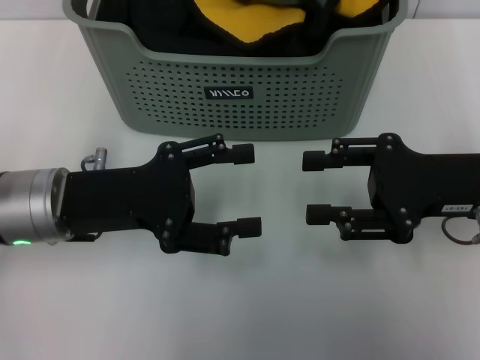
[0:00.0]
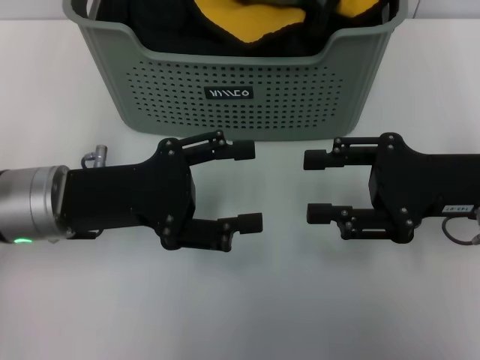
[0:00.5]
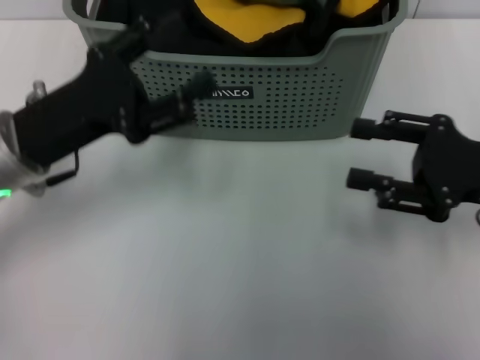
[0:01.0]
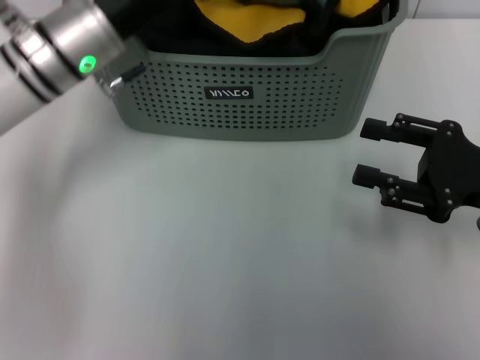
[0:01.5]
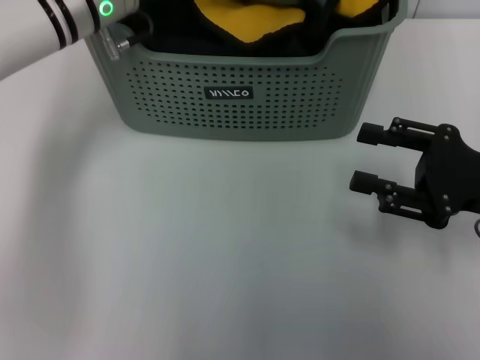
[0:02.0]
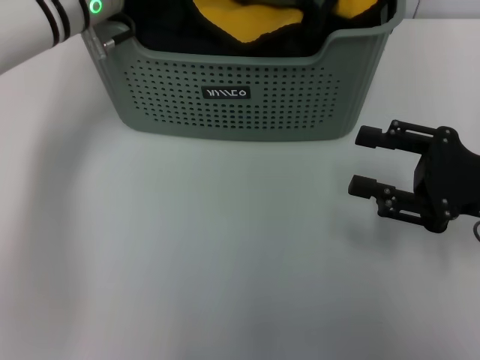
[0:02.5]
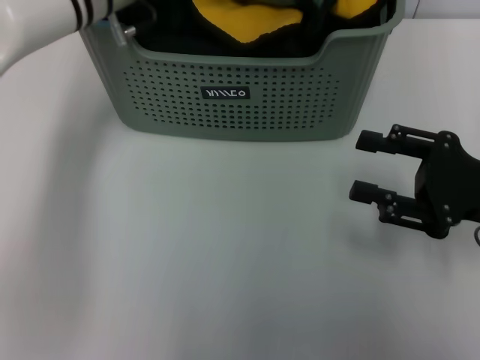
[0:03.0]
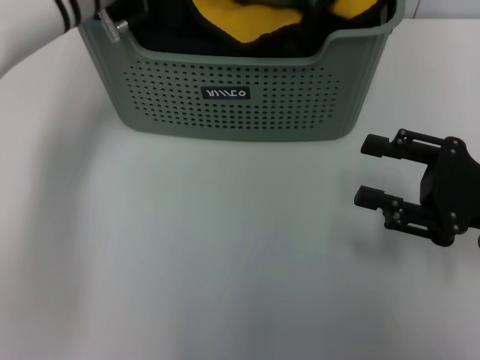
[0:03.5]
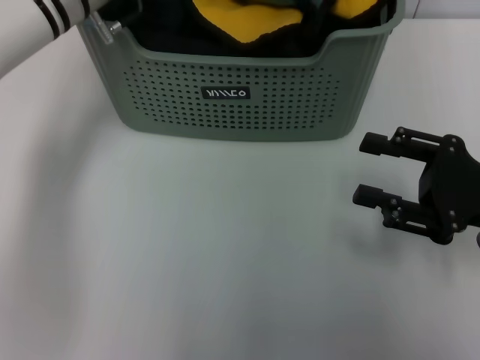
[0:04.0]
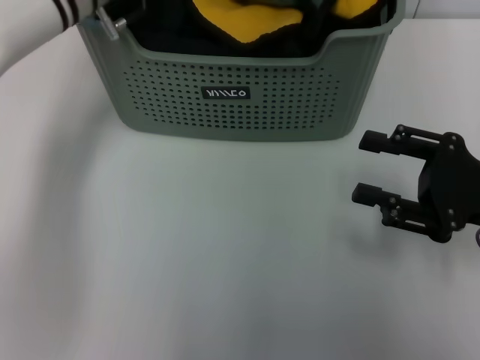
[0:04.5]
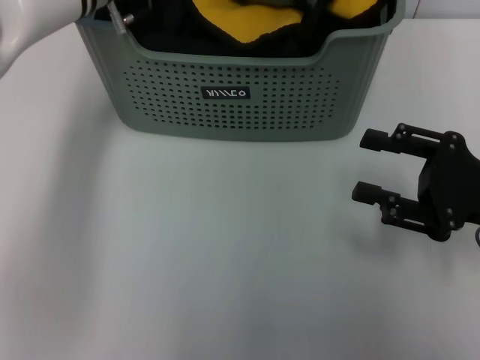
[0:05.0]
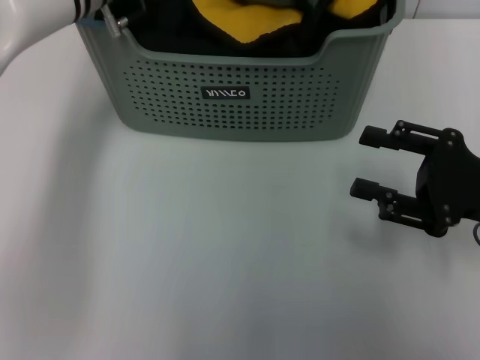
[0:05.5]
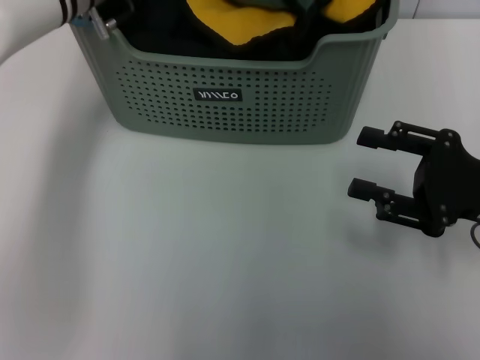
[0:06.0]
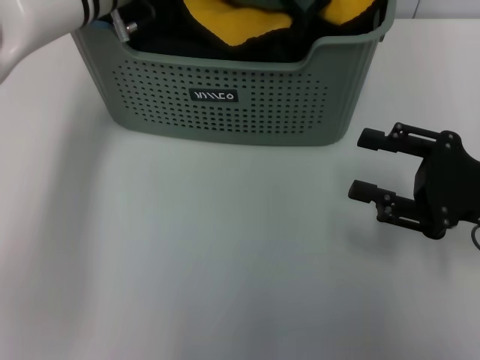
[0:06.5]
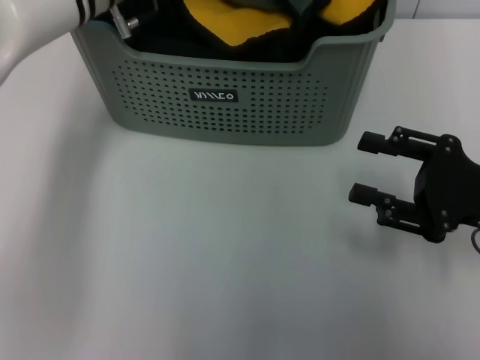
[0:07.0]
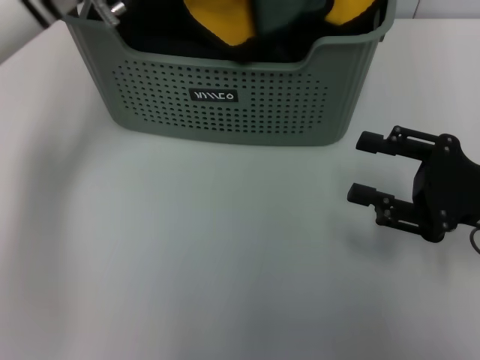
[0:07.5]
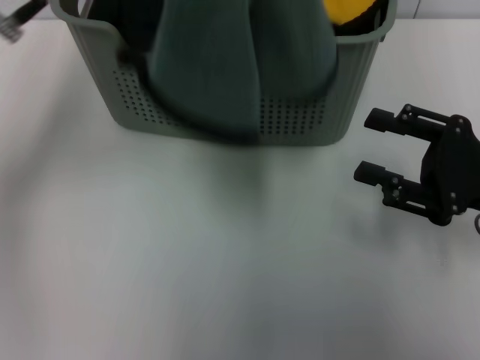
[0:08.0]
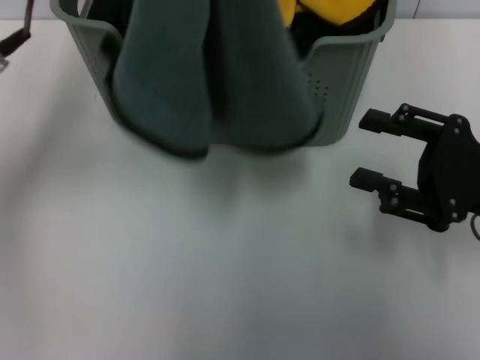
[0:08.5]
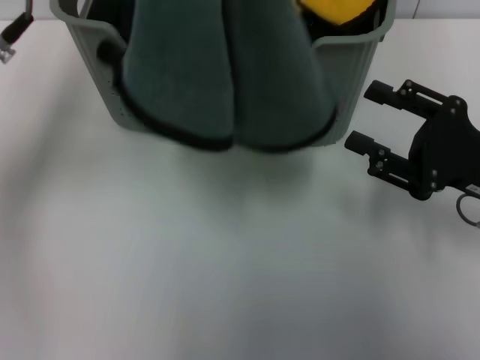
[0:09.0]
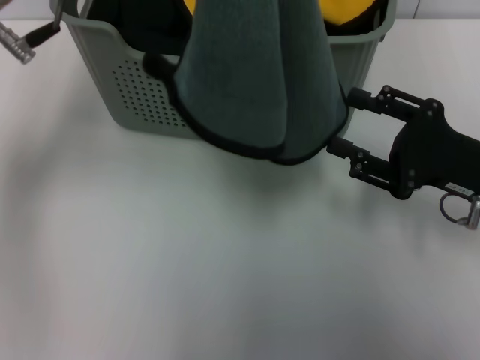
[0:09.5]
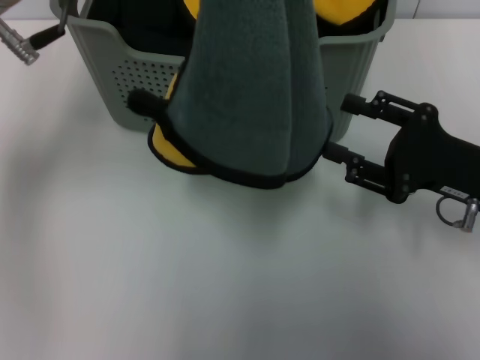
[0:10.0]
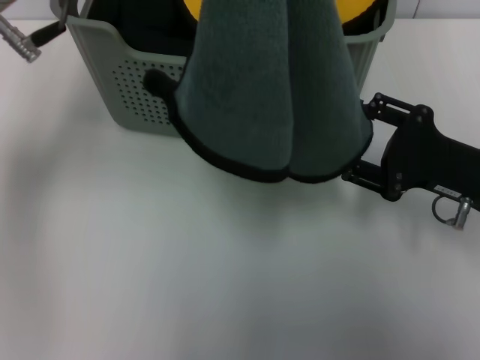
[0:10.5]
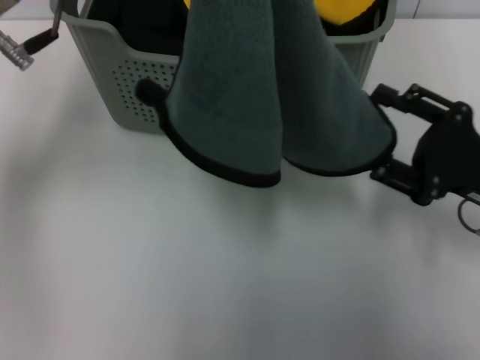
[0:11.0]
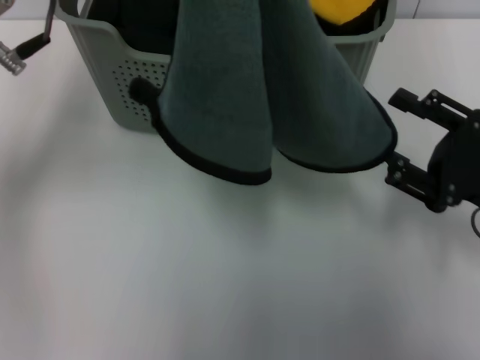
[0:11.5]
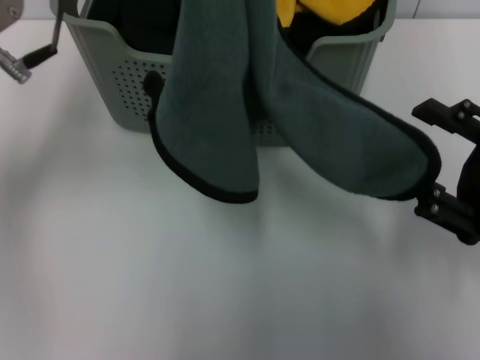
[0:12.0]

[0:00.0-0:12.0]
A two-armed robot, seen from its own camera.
Task of the whole recording: pick up the towel from the storage box and lay it flat on the table.
Step, 0:00.0 to 0:07.5: Pick up a towel with the left gripper.
0:00.0 to 0:02.0: The left gripper goes some 15 cm forward.
0:02.0 to 0:04.0: The left gripper closes.
0:04.0 to 0:06.0: There are only small adjustments of the grippers.
0:06.0 to 0:08.0: The left gripper goes about 15 cm backward and upward, and closes its fingers.
0:08.0 to 0:10.0: There are only small adjustments of the grippers.
0:10.0 to 0:12.0: The right gripper goes roughly 5 cm backward.

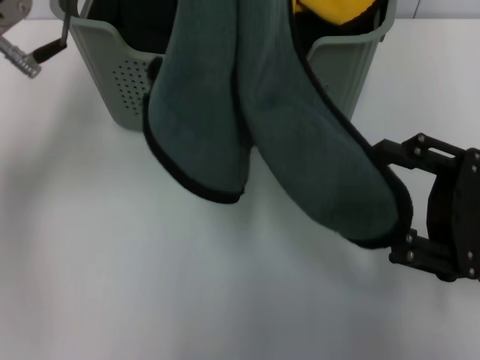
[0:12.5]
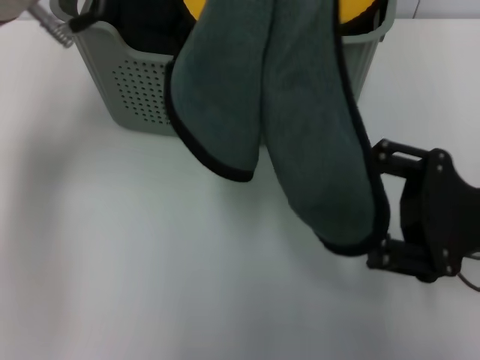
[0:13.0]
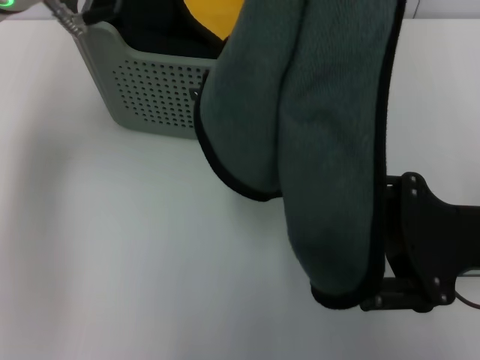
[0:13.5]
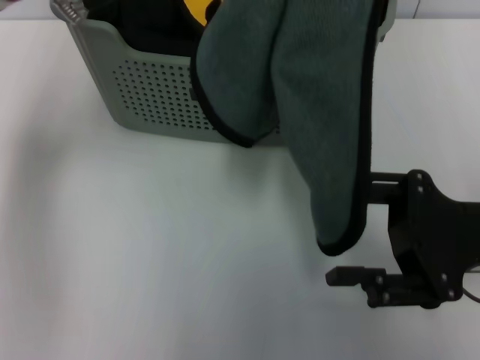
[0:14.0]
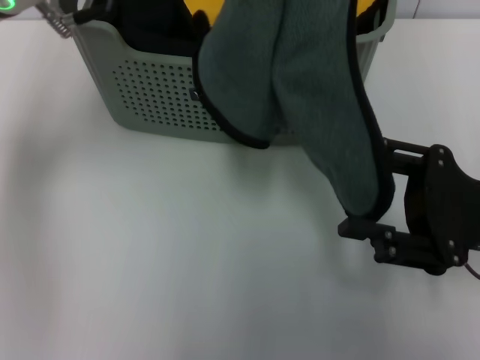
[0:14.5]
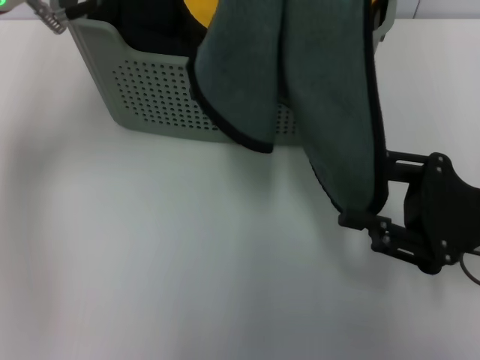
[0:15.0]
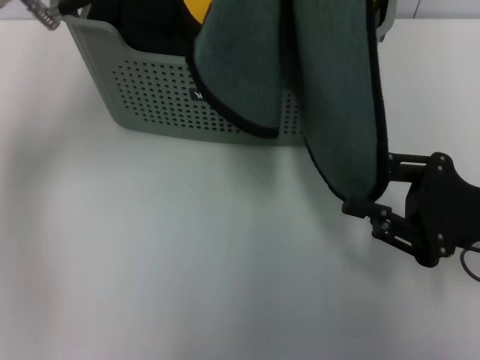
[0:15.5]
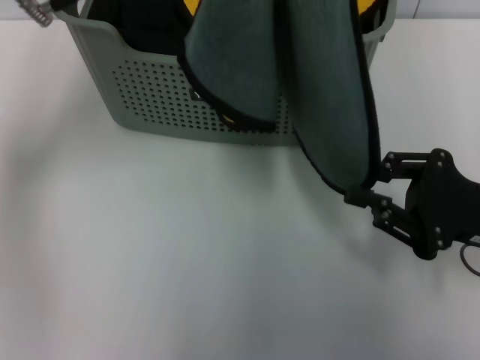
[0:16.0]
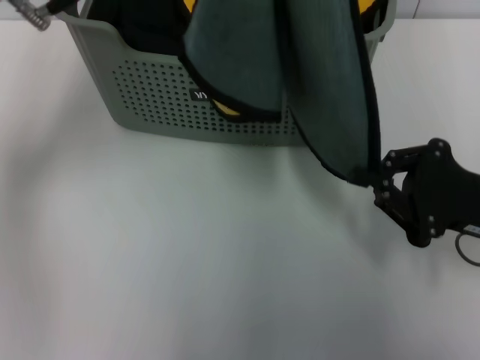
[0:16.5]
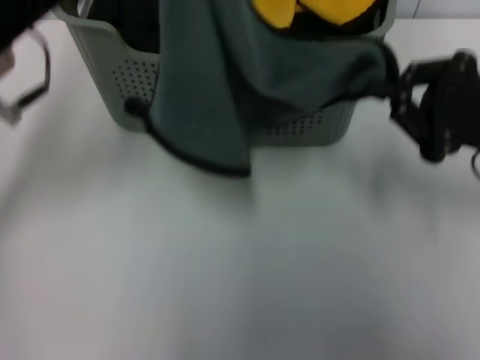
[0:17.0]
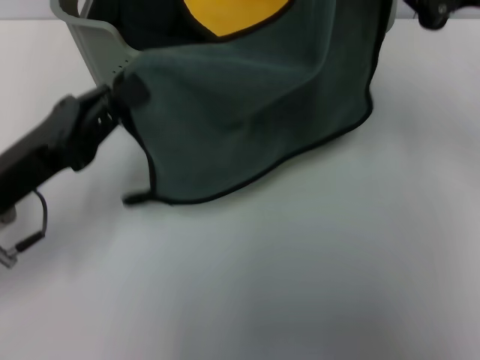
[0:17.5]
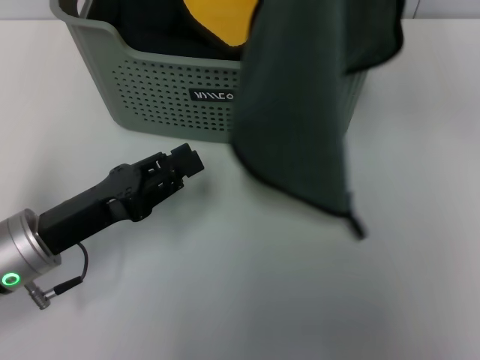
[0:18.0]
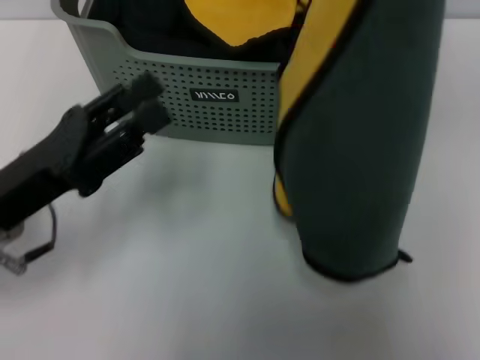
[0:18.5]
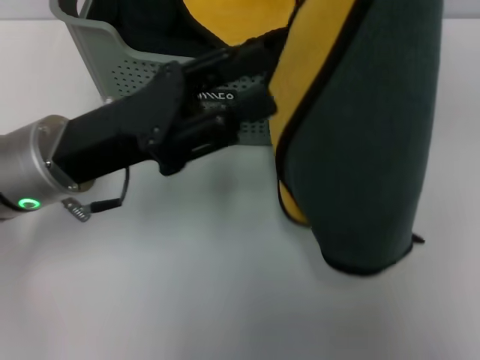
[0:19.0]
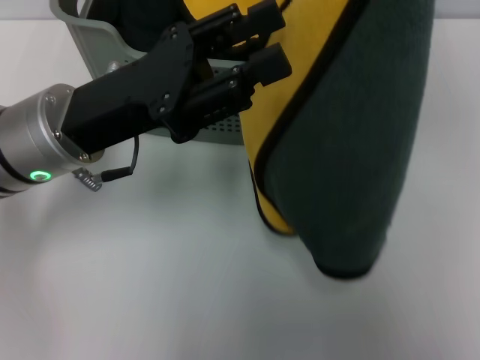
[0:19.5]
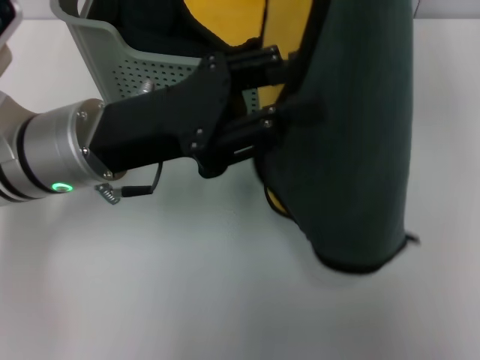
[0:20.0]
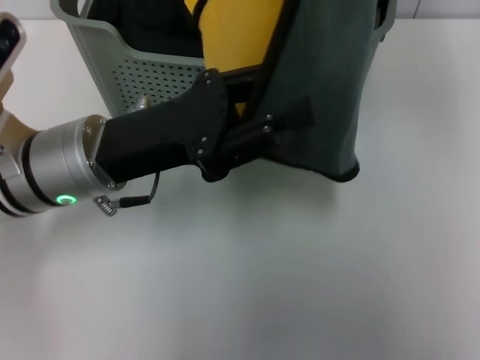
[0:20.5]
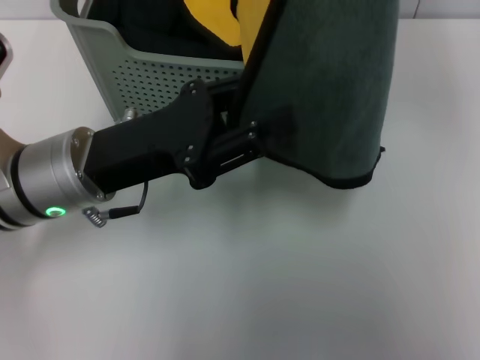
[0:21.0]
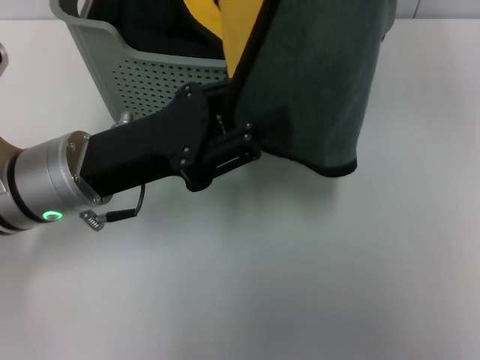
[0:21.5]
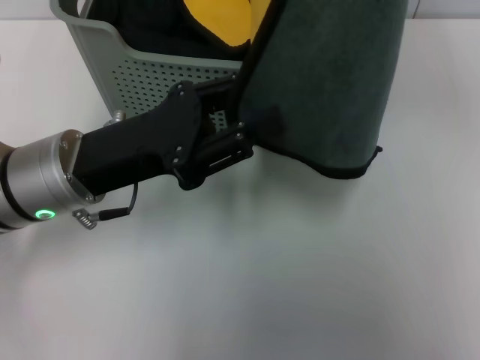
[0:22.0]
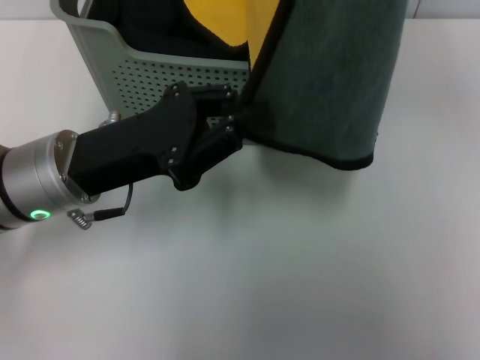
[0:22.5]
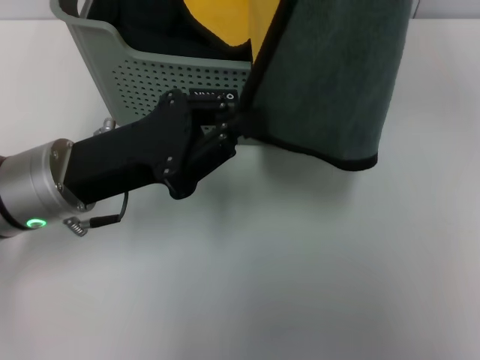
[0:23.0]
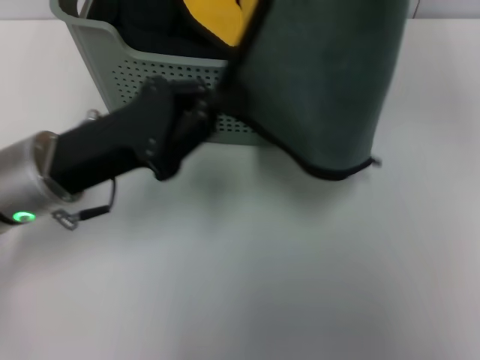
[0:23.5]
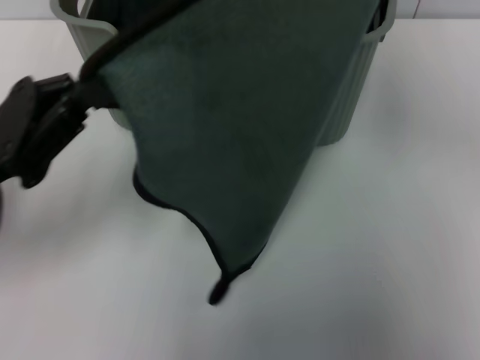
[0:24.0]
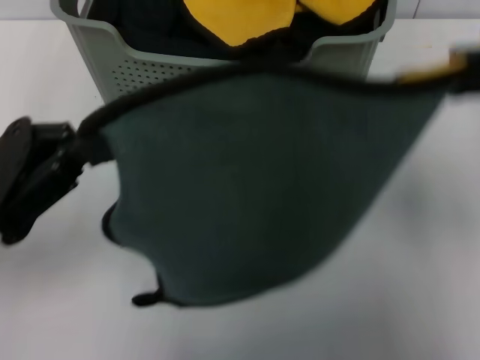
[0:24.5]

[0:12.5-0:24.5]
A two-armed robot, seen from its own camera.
Task of the whole recording: pick up the towel from the storage box and lay it flat on the table.
Step, 0:12.5 to 0:16.5: Spread the towel flat with the left gripper.
0:12.5 to 0:14.5: There are only small adjustments of the grippers.
0:14.5 to 0:16.5: The right gripper closes.
0:16.5 to 0:18.5: The left gripper moves downward and backward, approximately 20 cm, and opens up. The right gripper shifts about 35 cm upward.
0:18.5 to 0:20.5: The left gripper moves to the right and forward, roughly 10 cm.
0:20.5 to 0:22.5: There are only small adjustments of the grippers.
0:22.5 to 0:24.5: The left gripper shifts some 10 cm to the left and backward, and closes its fingers. The right gripper goes some 20 cm downward and backward.

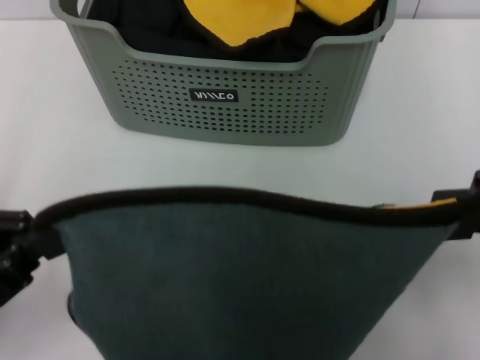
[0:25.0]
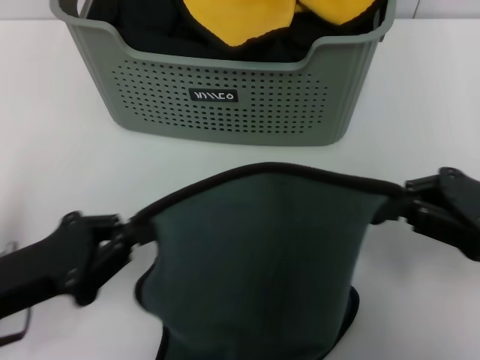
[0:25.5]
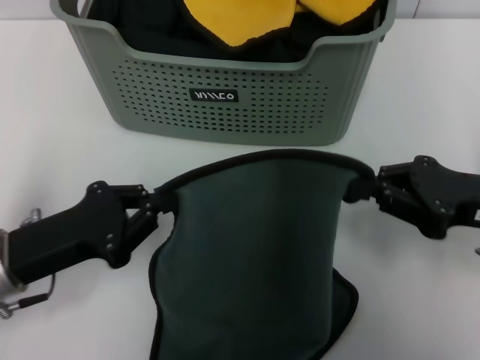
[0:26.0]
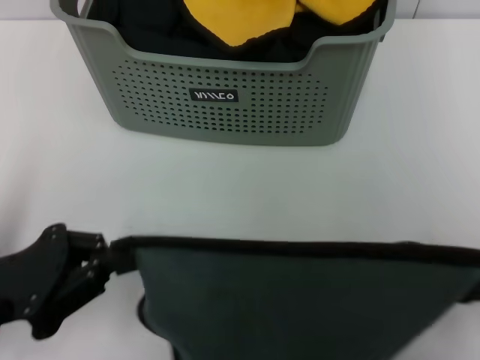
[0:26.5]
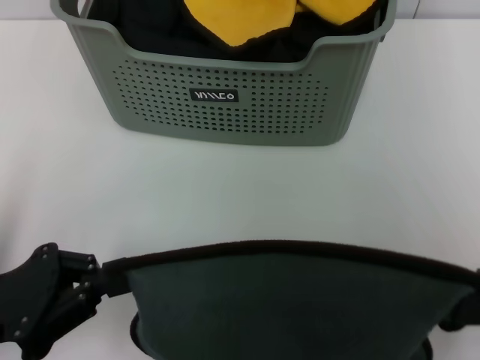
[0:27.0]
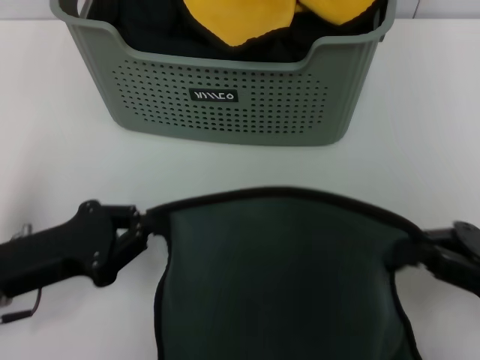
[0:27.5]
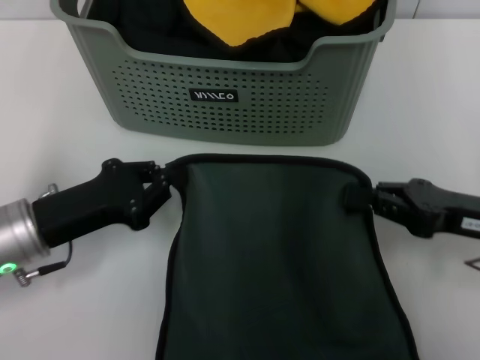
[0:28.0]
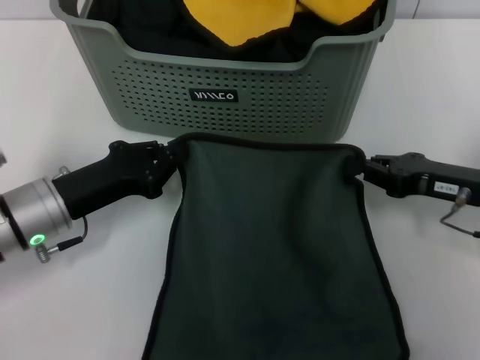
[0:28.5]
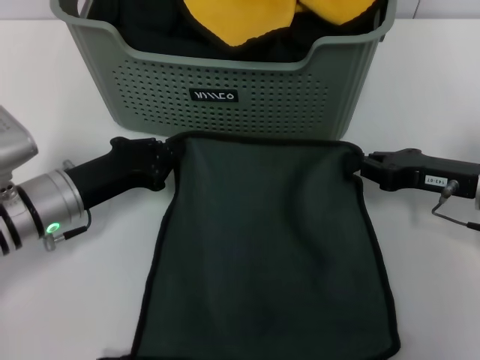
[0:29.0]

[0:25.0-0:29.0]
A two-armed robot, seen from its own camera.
Task of the whole recording: pick up the towel from the storage box and lay it flat on the table.
0:25.0 to 0:27.0: The right gripper travels downward by some 10 cm.
0:27.0 to 0:29.0: The right gripper is displaced forward and downward by some 15 cm. Meanwhile the left gripper shifts about 15 cm forward, downward and to the right.
